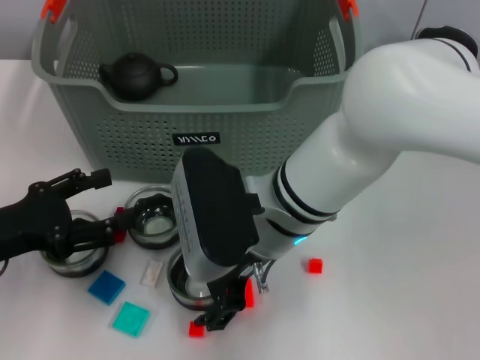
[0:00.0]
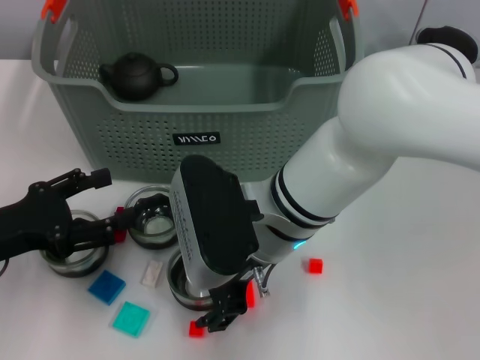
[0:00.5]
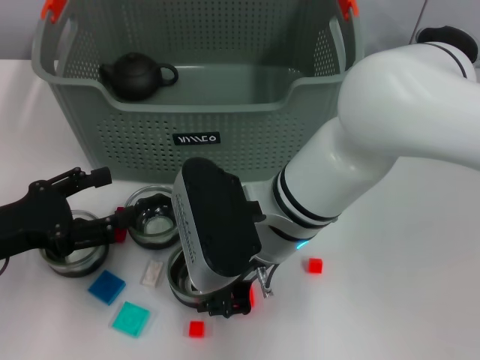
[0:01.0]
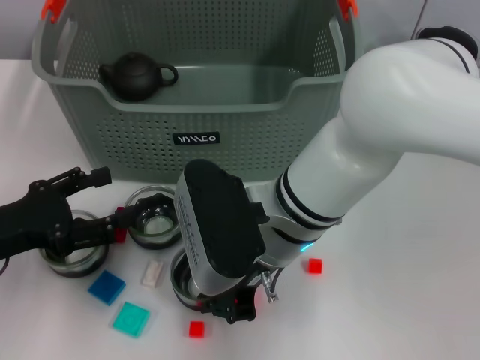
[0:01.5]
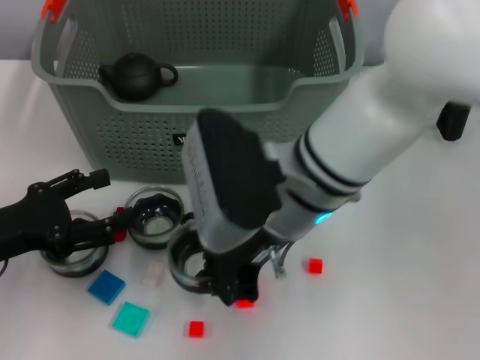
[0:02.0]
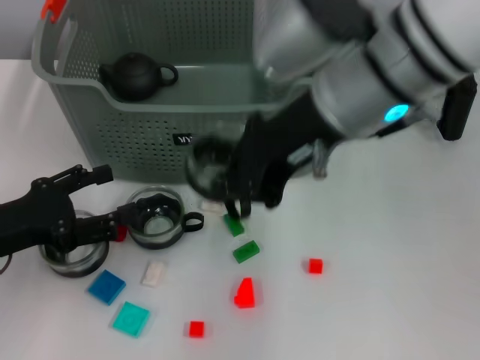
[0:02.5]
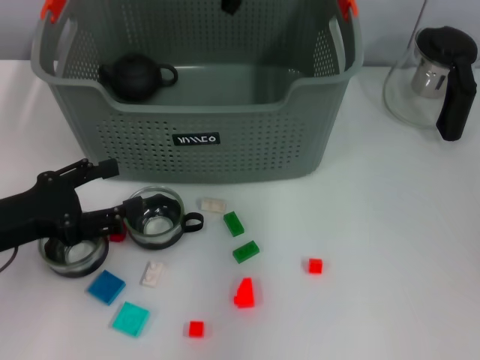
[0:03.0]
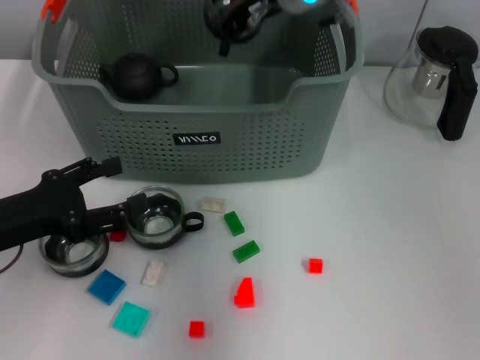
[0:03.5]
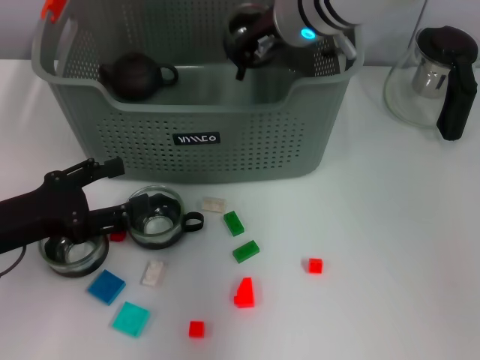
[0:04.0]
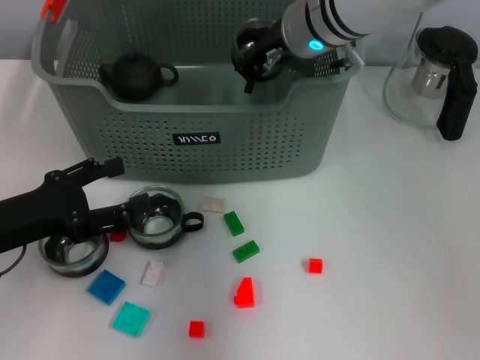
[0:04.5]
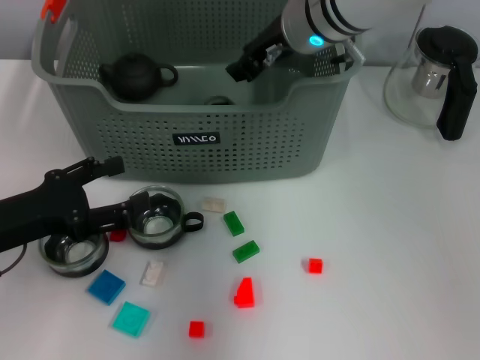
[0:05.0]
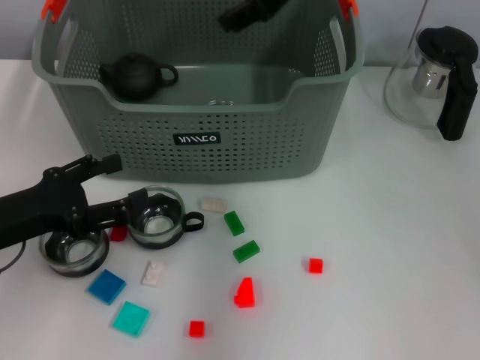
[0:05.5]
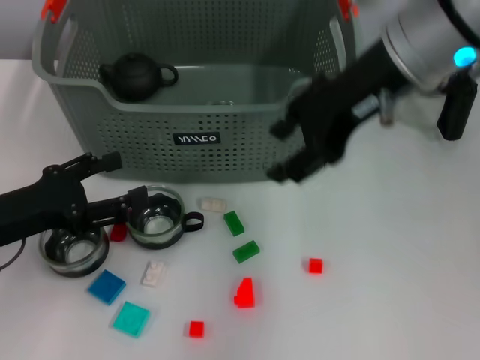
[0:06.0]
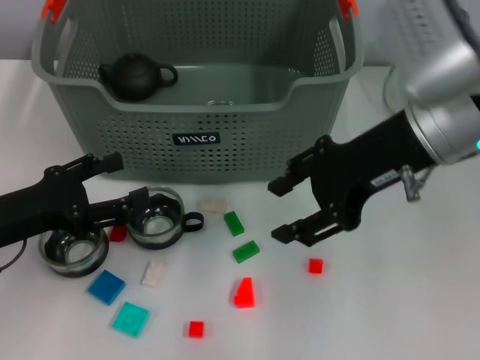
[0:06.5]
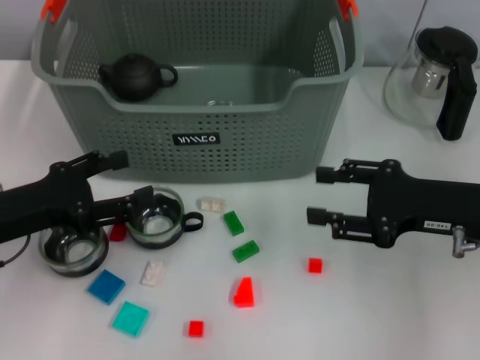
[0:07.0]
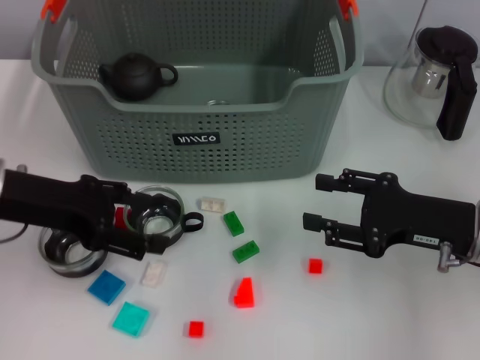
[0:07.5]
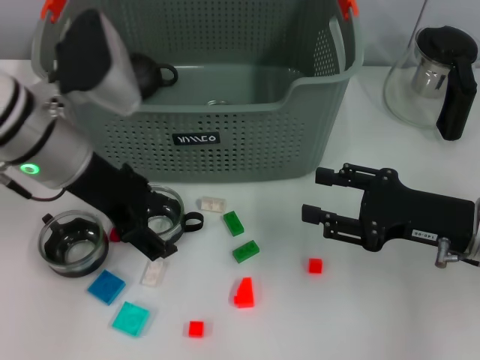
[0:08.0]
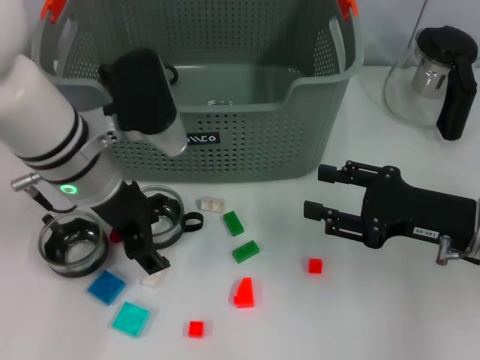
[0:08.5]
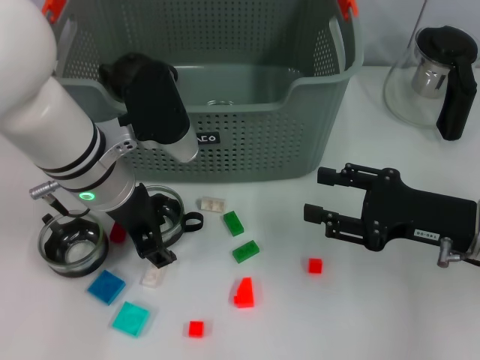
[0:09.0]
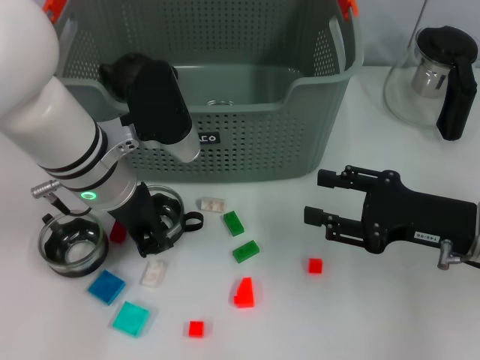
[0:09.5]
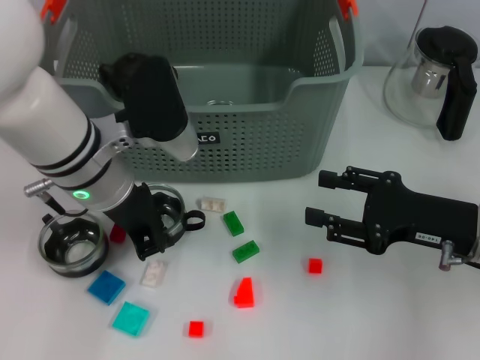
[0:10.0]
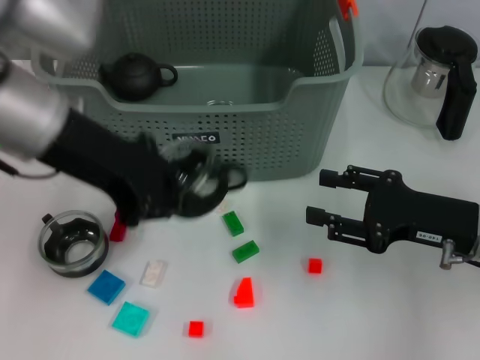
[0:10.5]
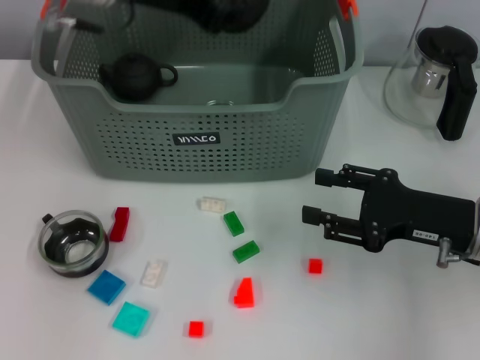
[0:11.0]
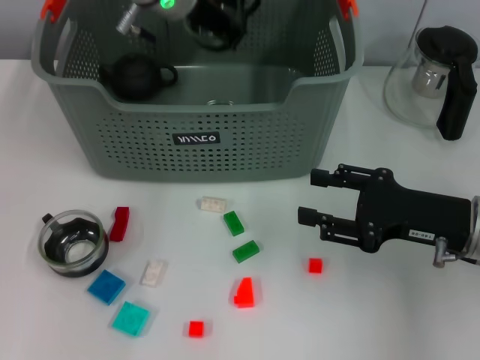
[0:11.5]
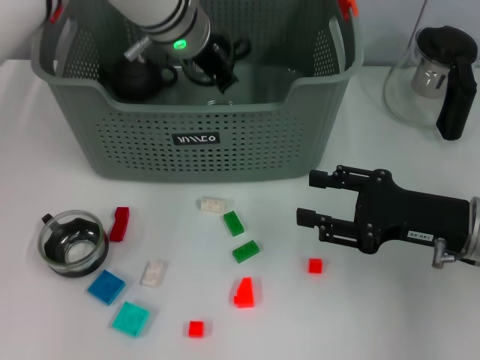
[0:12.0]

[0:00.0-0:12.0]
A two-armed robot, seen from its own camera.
Task of the whole recording: pick up the teacup on the table and place it into the storage bin, pick up the block on the table and place it into the storage bin.
Step, 1.5 to 5.0 s: Place the cup in the storage box with right gripper.
Step, 5.5 to 9.5 s: Grasp the cup with left gripper.
0.0 to 2.0 s: The right gripper closes.
2.0 to 4.0 s: The right gripper shifts some 15 cm forward.
4.0 to 6.0 s: The right gripper travels backward, to the right and upward by about 15 cm, and opens.
6.0 to 8.0 s: The right gripper goes about 25 cm downward and to the right, while the left gripper travels to the right, upward and forward by about 15 cm.
8.0 to 10.0 s: The left gripper closes up.
10.0 to 12.0 s: The left gripper is displaced forward and to the right by some 15 cm.

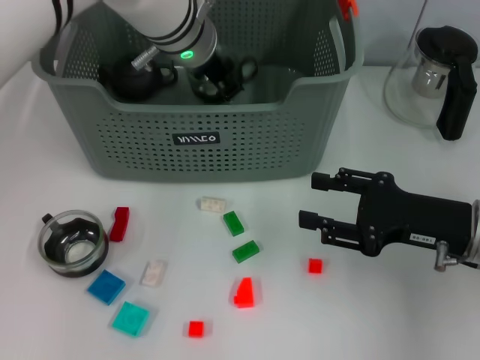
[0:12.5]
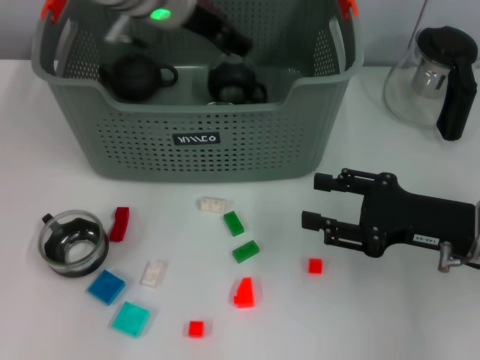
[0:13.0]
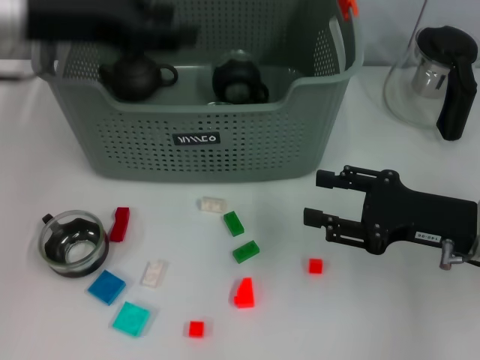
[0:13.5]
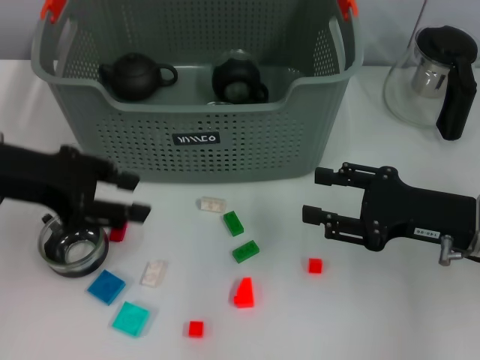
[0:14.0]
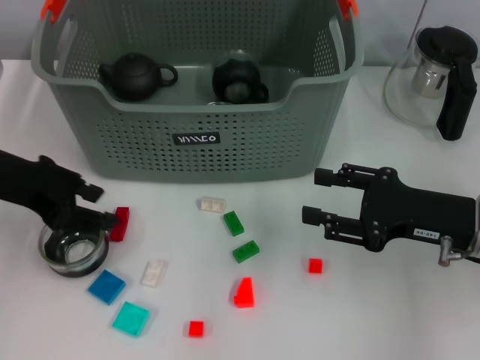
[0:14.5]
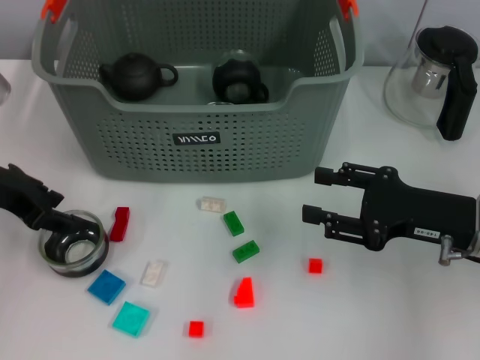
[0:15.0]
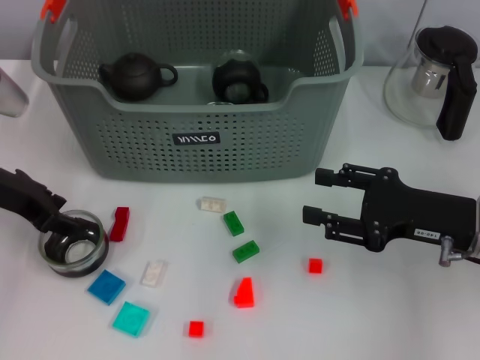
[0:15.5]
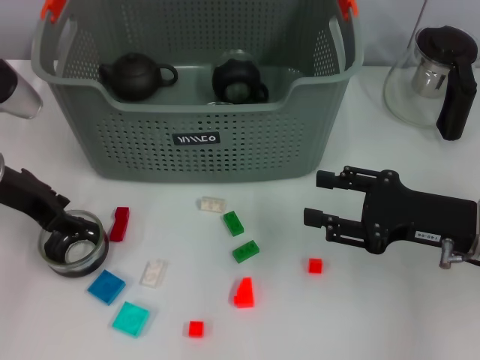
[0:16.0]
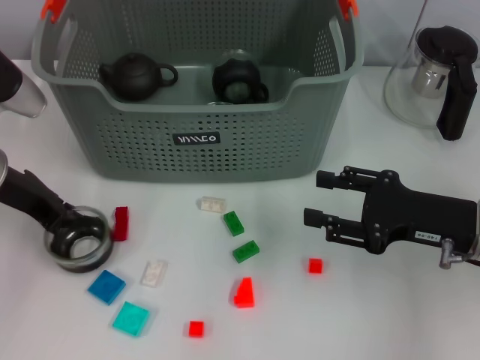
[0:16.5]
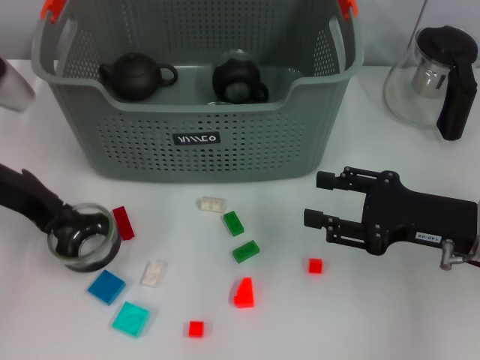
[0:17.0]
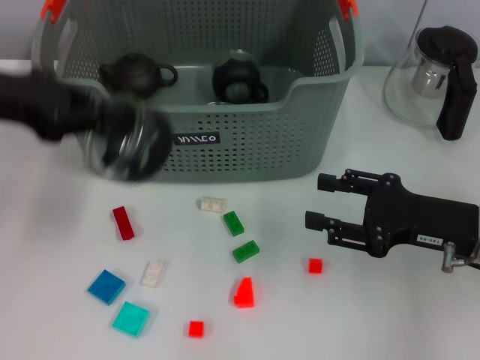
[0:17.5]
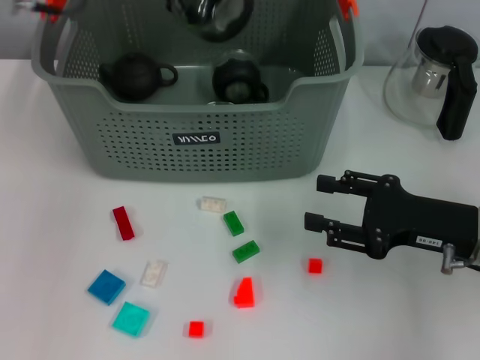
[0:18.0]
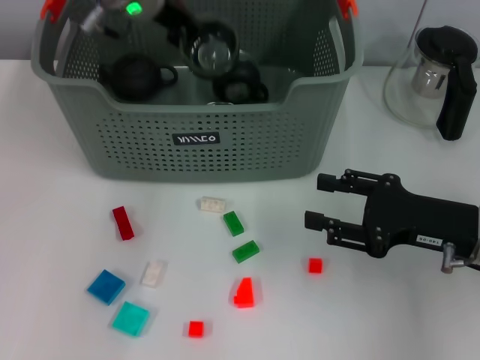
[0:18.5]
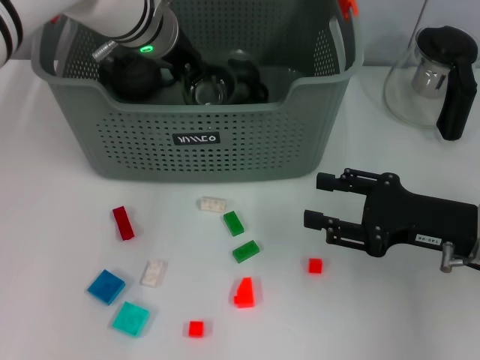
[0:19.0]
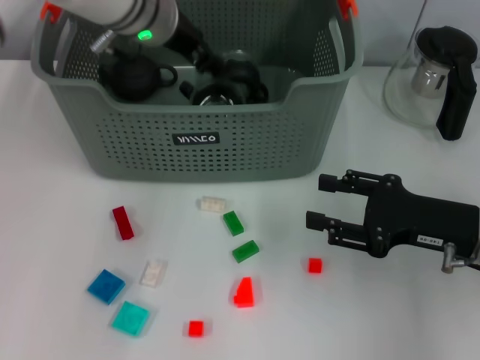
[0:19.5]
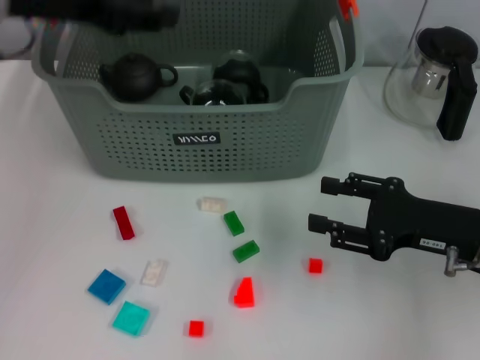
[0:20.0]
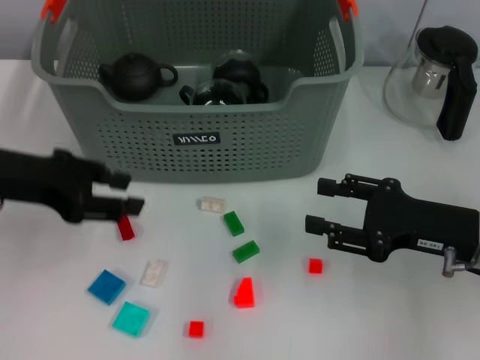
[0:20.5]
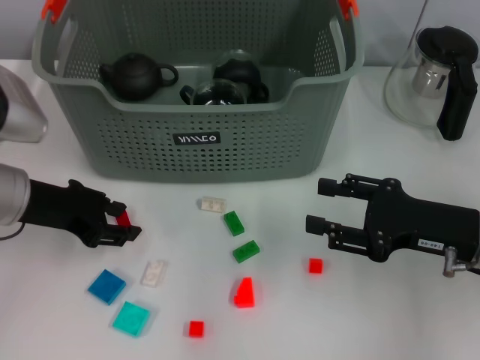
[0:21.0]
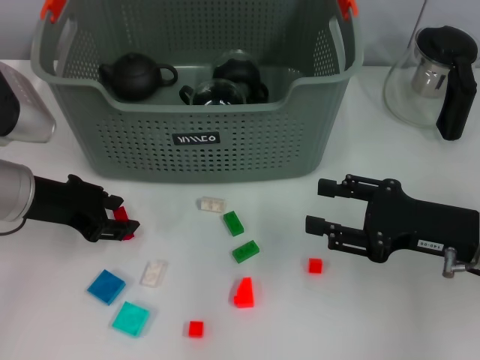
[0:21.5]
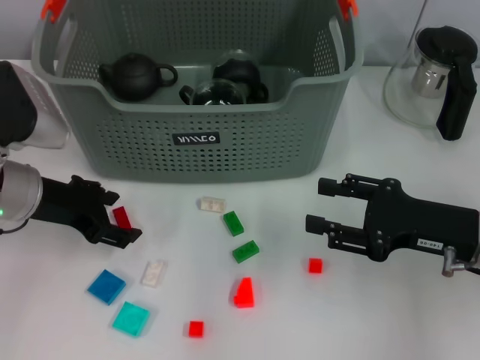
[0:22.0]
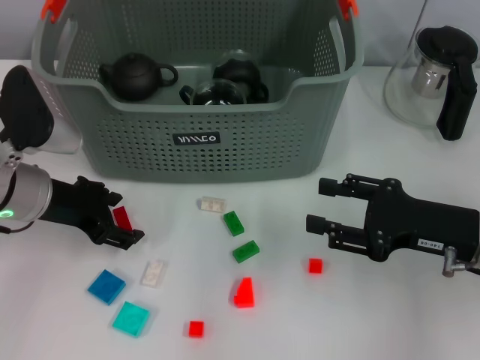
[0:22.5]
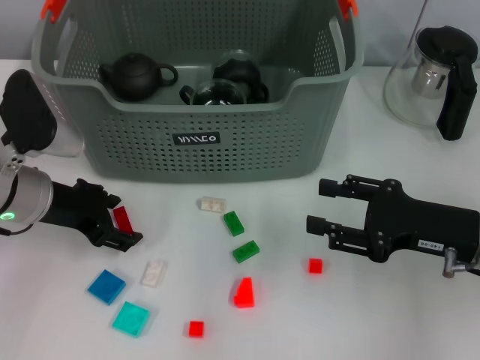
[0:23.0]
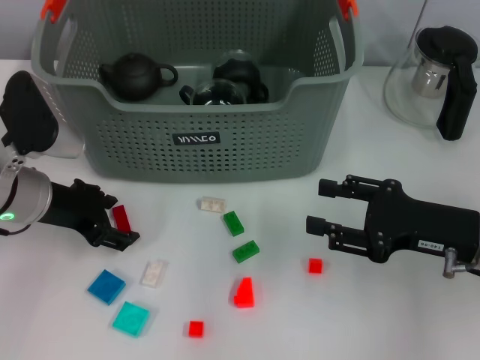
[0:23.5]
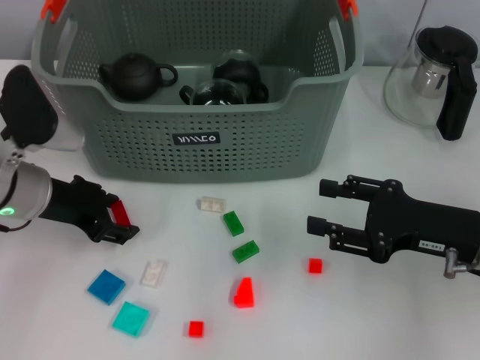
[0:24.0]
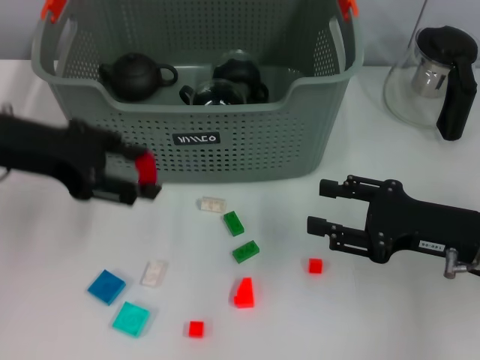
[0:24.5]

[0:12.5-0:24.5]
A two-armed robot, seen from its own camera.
Task of the whole recording: pick up the teacup on the table and place it into the storage bin, pick up the block on the table and place it into the storage bin.
Step, 13.5 to 16.0 s: Grasp the cup with left gripper.
Step, 17.0 to 19.5 s: Place the cup in the storage box with left gripper.
Step, 20.0 to 23.5 s: Grasp the red block with left gripper.
12.5 to 14.5 s: The left gripper shifts about 25 cm to the left and backward, and opens up.
14.5 to 16.5 s: The left gripper shifts by about 5 cm, and closes up.
16.5 to 18.5 s: The left gripper shifts some 20 cm to the right, forward and upward.
18.5 to 20.5 s: The left gripper travels backward and to the left by some 25 cm, and opens.
20.5 to 22.5 s: The left gripper travels downward by some 5 cm, and opens.
22.5 to 24.5 s: The left gripper shifts about 10 cm upward.

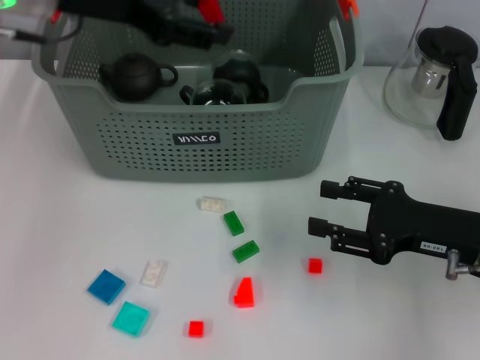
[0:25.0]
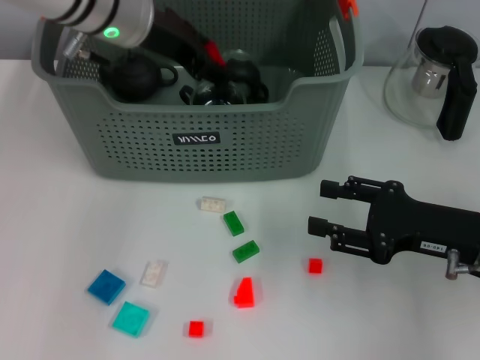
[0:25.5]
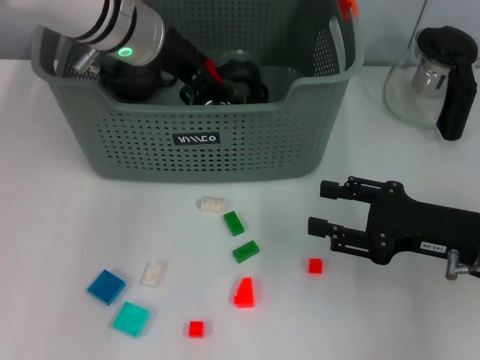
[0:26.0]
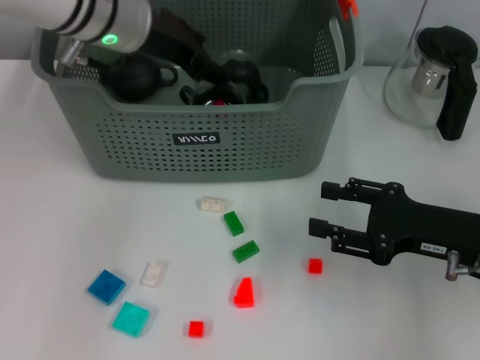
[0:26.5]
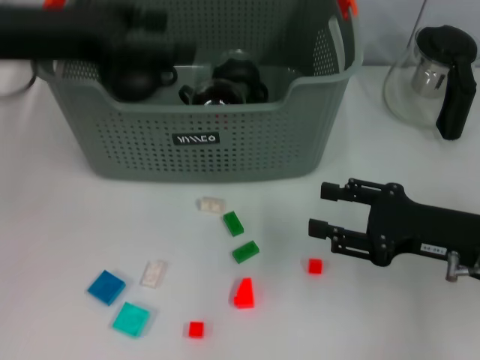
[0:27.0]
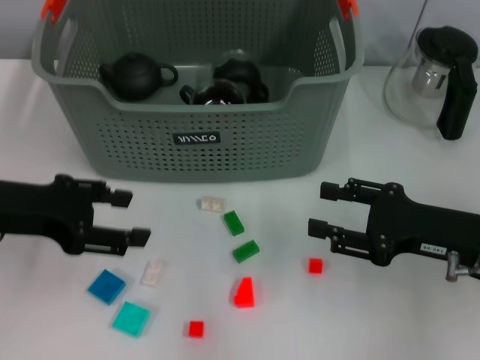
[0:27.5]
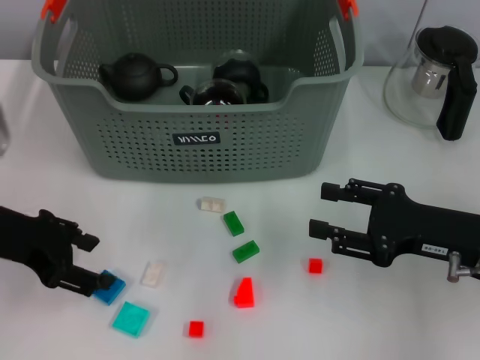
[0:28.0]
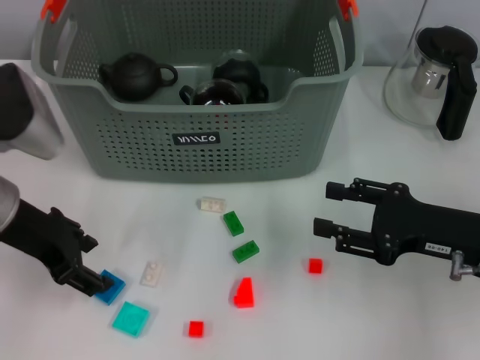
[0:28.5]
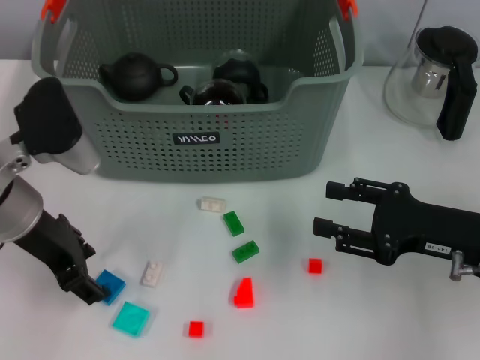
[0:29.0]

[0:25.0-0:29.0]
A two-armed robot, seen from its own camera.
Task of the whole recording: pick up the teacup on the table and place it into the storage bin, pick up the block on the table and place it into the storage bin.
Step, 25.0 to 26.5 s: Place the red block in the storage box with left gripper.
27.0 to 29.0 s: The left gripper moves downward, some 10 cm.
